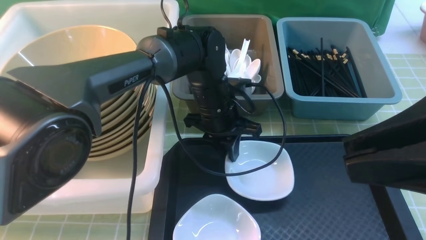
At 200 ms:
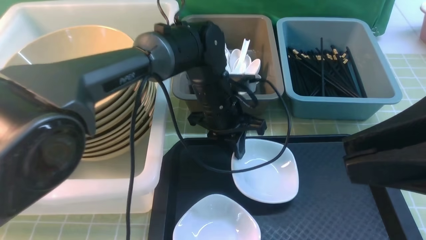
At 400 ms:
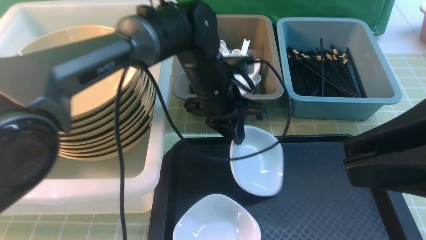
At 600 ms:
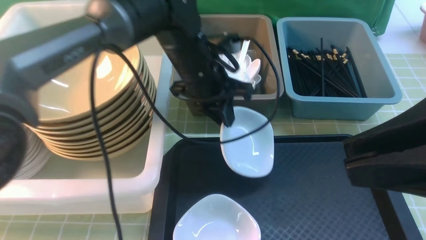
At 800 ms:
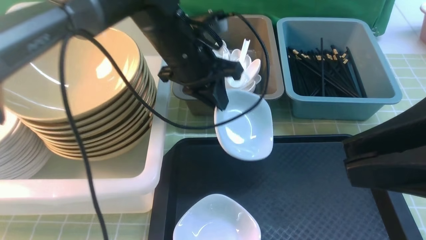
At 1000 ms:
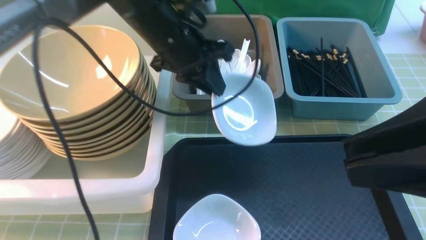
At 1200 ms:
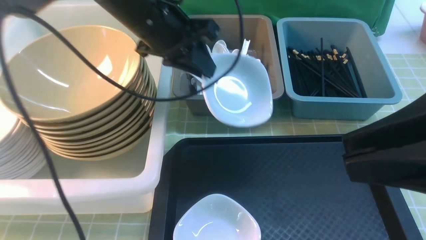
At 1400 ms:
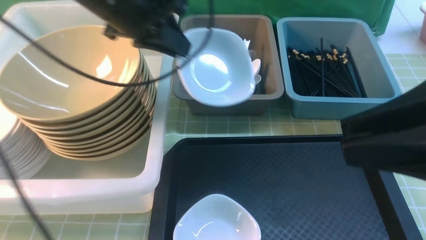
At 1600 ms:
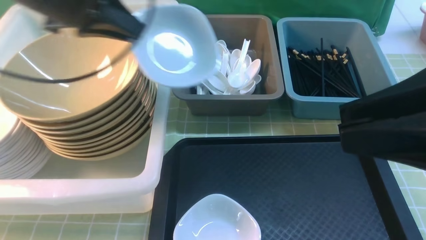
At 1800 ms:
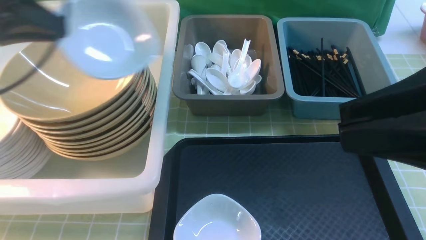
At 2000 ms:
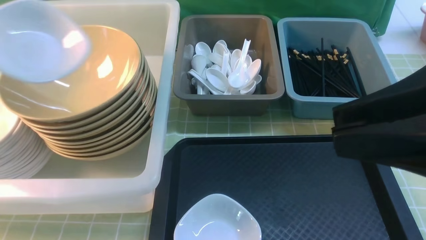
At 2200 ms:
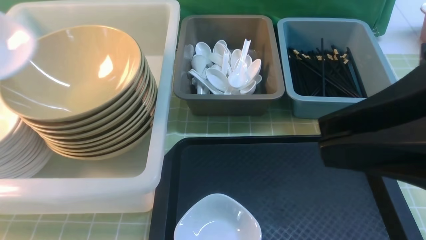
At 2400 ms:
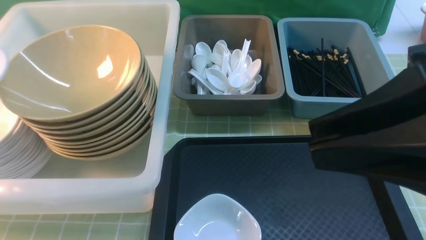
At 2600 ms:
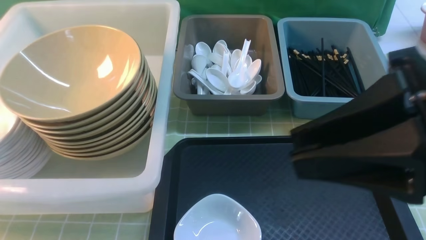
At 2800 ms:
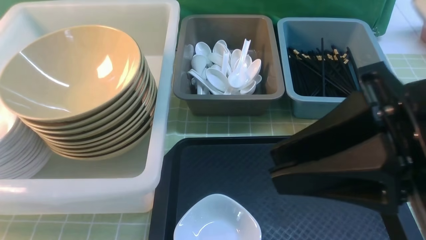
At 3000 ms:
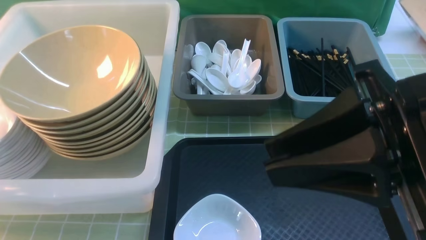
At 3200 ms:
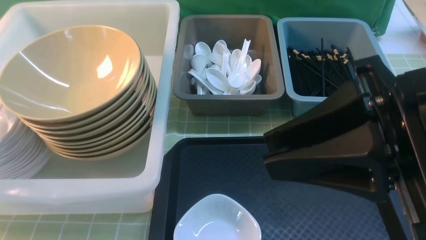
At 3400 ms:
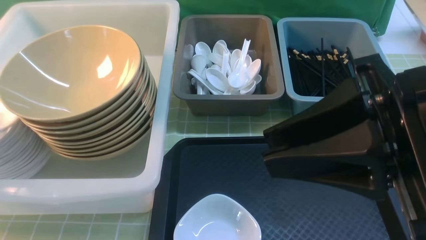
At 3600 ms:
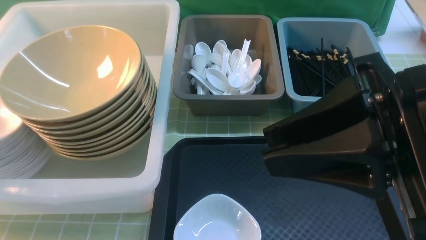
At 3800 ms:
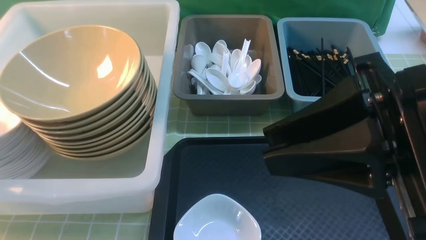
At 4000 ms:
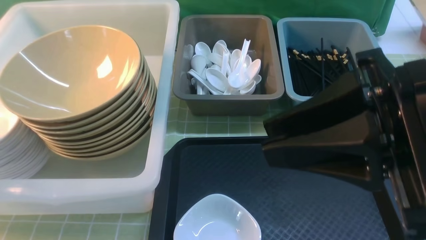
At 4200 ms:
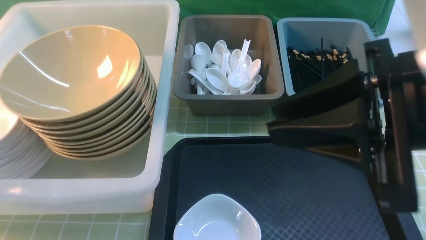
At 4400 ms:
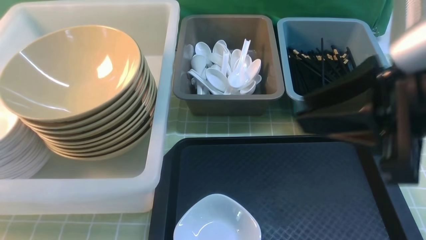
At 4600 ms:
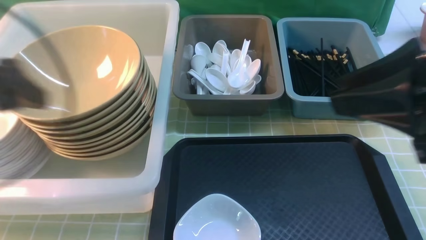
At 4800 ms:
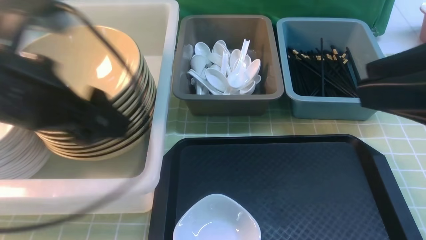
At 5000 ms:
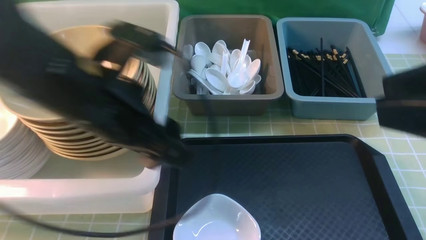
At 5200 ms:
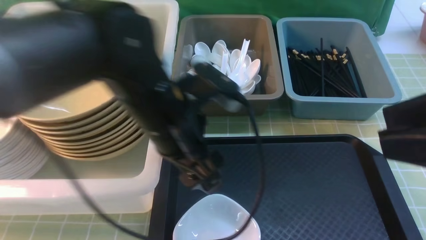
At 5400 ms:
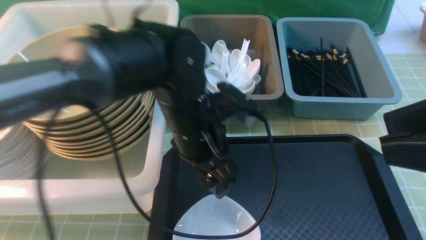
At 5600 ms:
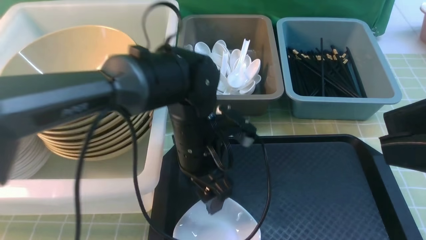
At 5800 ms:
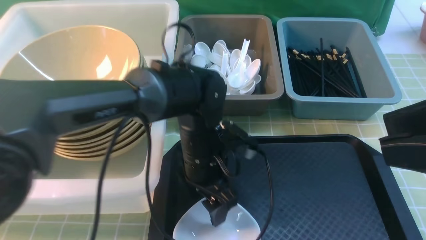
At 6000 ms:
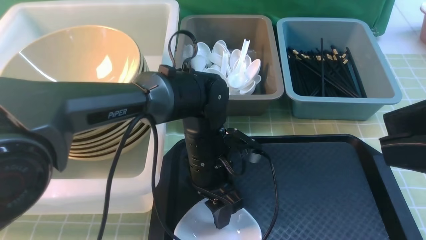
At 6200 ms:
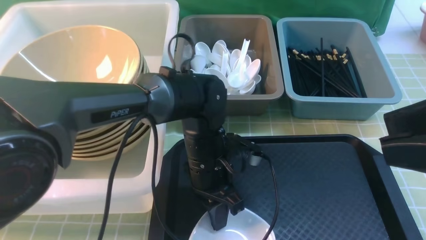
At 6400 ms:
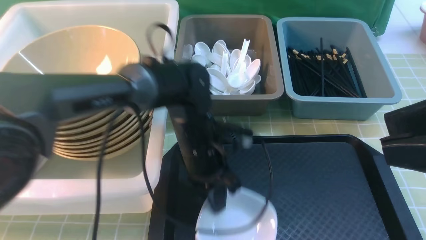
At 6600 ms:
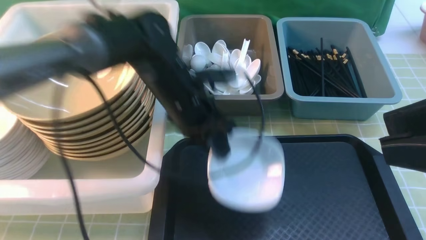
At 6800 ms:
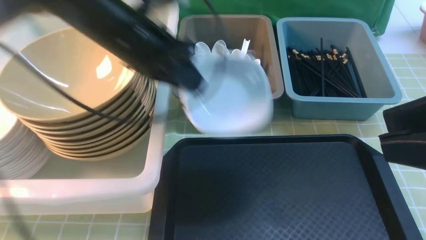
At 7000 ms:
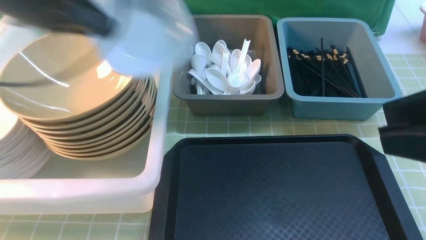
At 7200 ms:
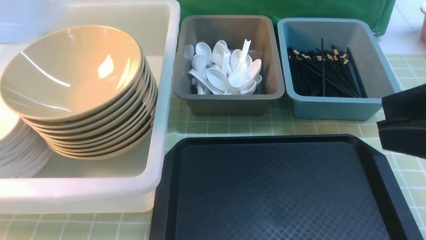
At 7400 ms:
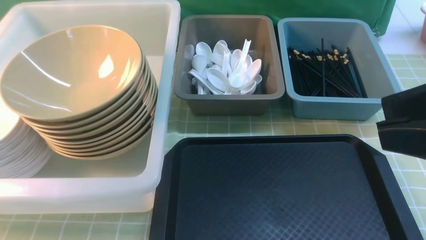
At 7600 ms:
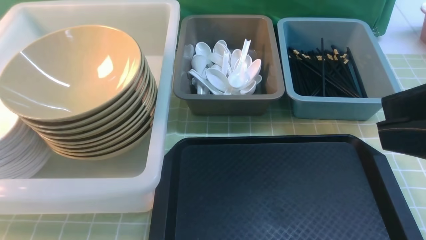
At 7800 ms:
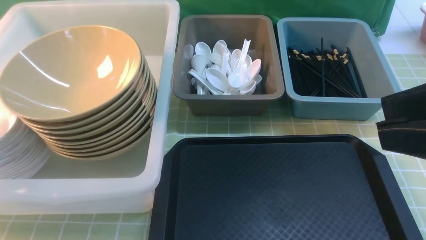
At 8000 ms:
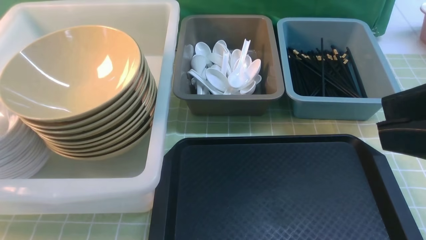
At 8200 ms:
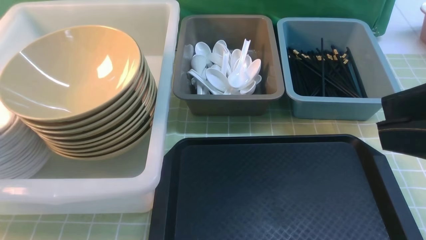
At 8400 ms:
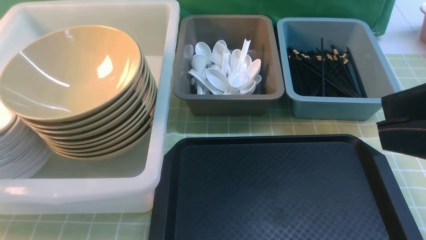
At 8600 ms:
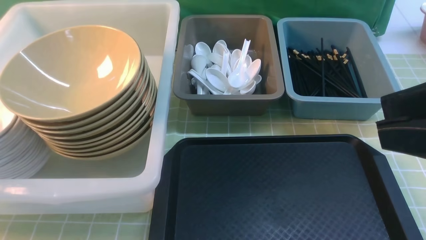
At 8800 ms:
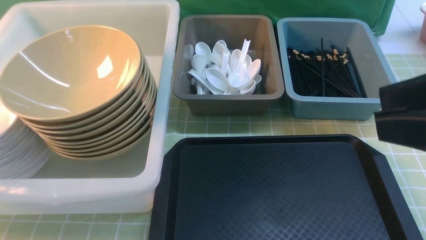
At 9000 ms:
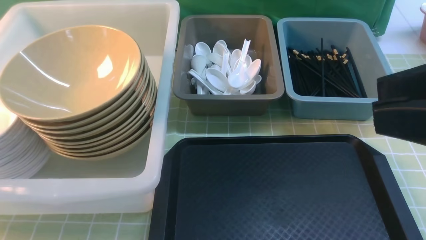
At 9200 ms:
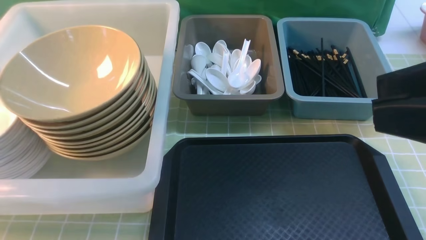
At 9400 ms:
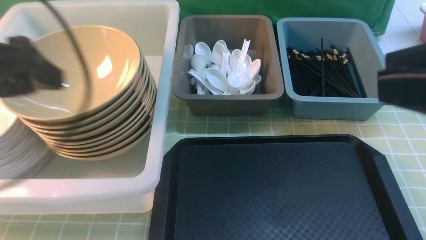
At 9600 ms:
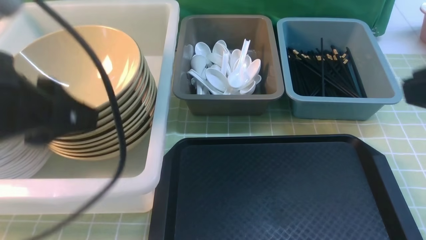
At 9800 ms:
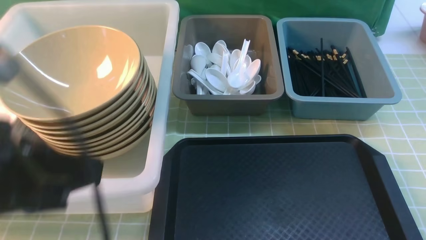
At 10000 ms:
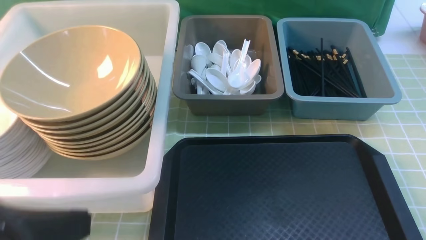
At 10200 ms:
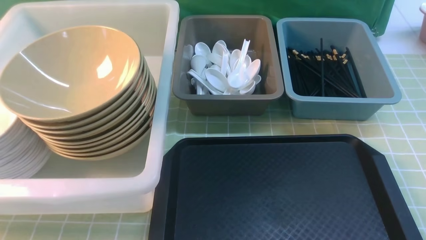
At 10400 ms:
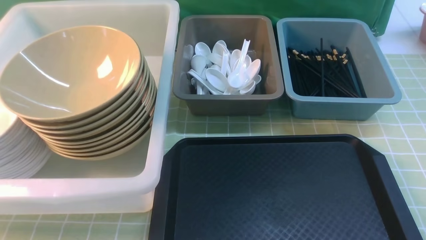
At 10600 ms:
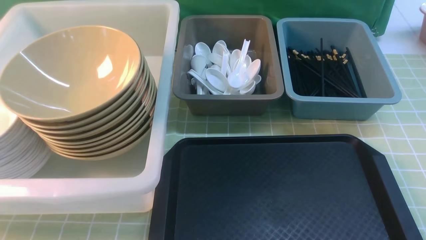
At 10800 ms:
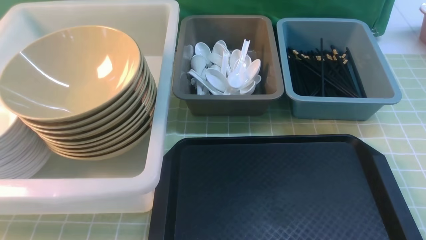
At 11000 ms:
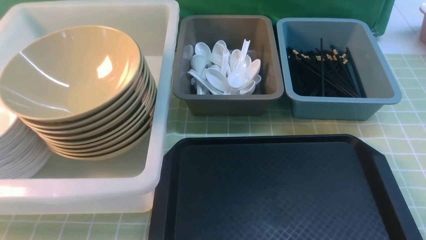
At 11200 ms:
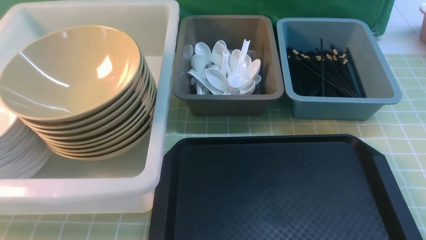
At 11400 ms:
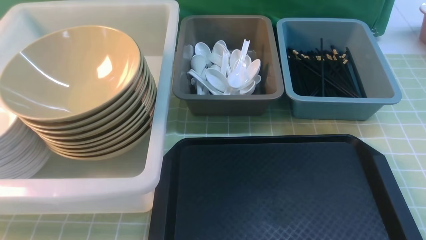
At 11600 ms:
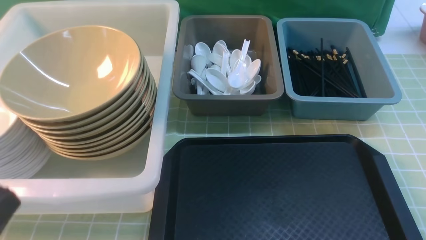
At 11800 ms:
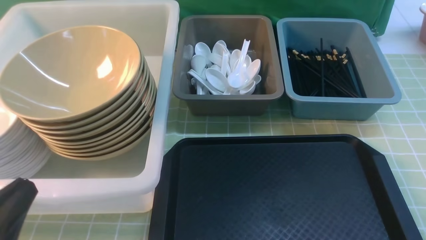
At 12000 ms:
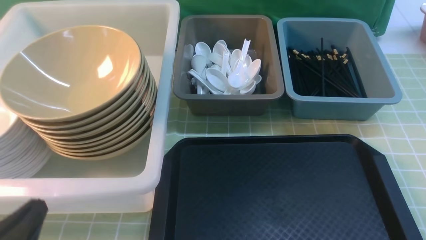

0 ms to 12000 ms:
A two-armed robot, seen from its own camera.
Task of the whole recording: on green table put chopsticks spoon bowls plates into blue grey white boxes.
Step, 600 ms to 3800 ms: use the left arm to put the plate into the large storage box on the left.
Step, 4200 ms to 6400 ms: use the left arm to grab the plate.
Step, 6800 ms to 9000 ms: use the left arm to put the plate into the large storage box on the left.
0 ms to 1600 ms: The left gripper is displaced to the left and upward by approximately 30 cm.
1600 ms to 3000 ms: The right gripper shifts by approximately 5 cm, while the left gripper heads to the left and backward, covering about 20 cm.
3000 ms to 4400 ms: The left gripper moves to the right, approximately 10 cm, and opens.
4400 ms to 6000 ms: The left gripper is displaced to the right and downward by about 35 cm, and closes up. Meanwhile the right gripper goes some 5 cm backward.
6000 ms to 7600 ms: The left gripper moves to the left and upward, roughly 50 cm, and closes its fingers.
9000 ms to 10400 ms: The left gripper travels backward and to the right by some 30 cm, and closes up. The right gripper moves downward, to the right and backward, some 20 cm, and closes up.
10400 ms to 12000 ms: The left gripper goes approximately 15 cm downward and forward.

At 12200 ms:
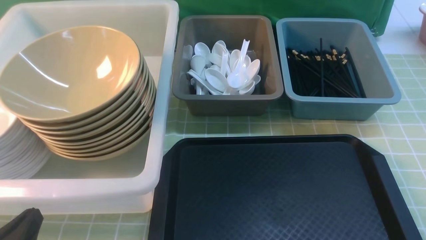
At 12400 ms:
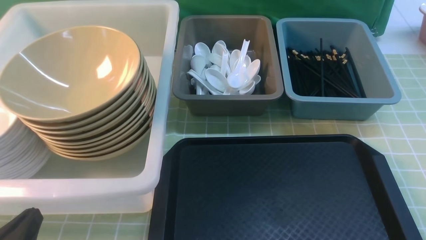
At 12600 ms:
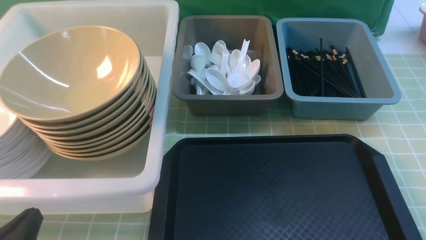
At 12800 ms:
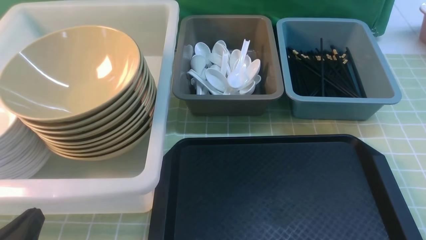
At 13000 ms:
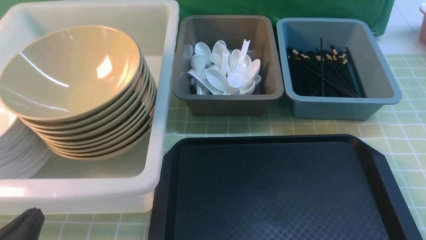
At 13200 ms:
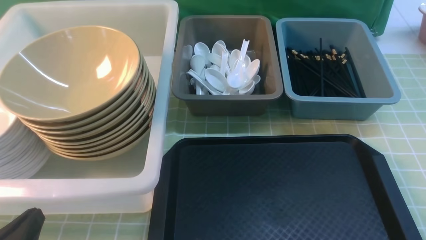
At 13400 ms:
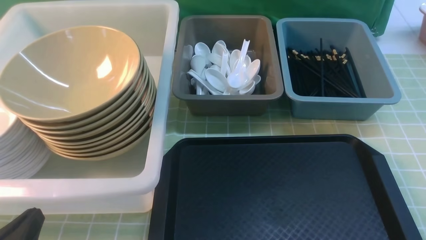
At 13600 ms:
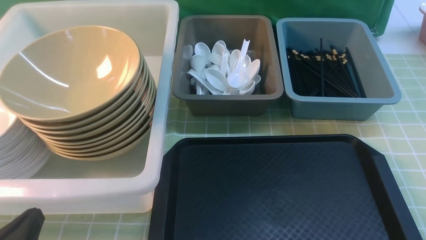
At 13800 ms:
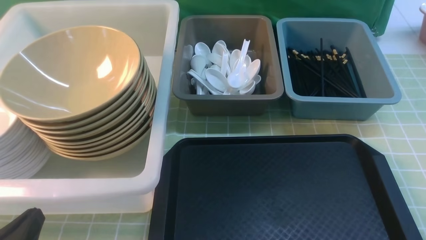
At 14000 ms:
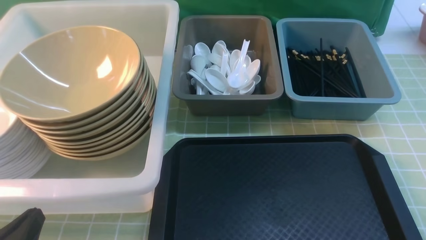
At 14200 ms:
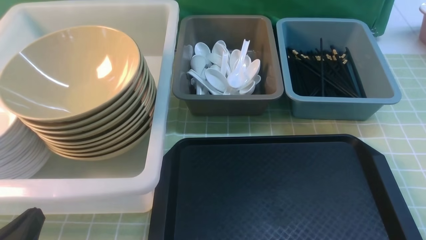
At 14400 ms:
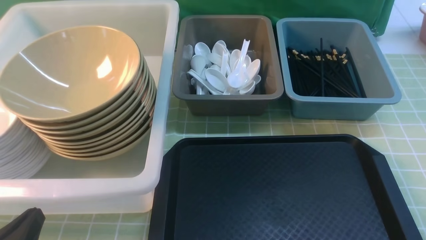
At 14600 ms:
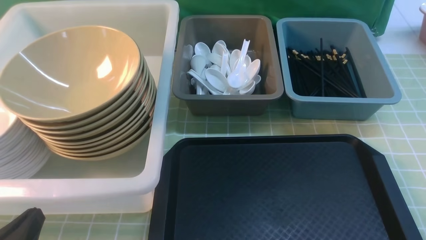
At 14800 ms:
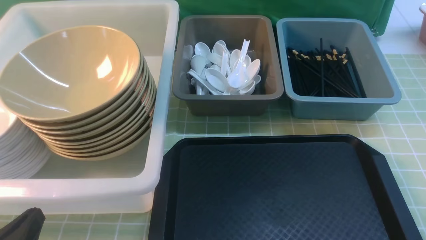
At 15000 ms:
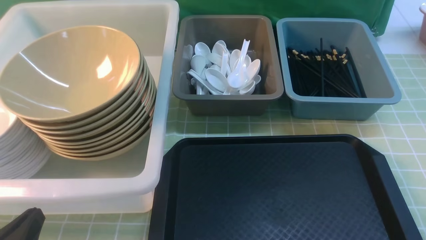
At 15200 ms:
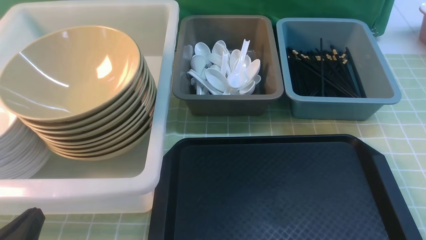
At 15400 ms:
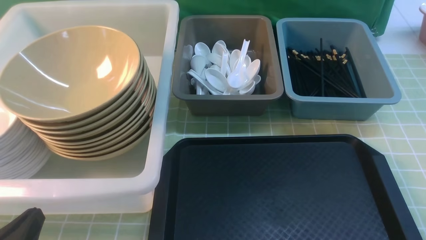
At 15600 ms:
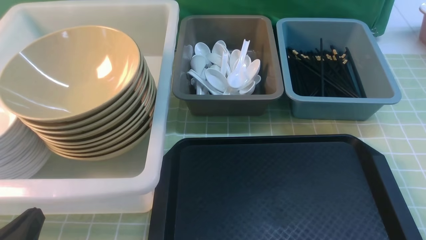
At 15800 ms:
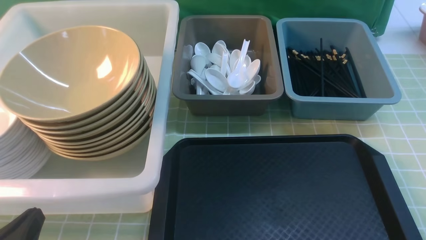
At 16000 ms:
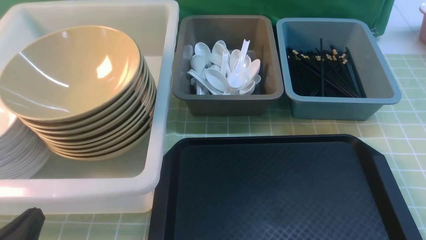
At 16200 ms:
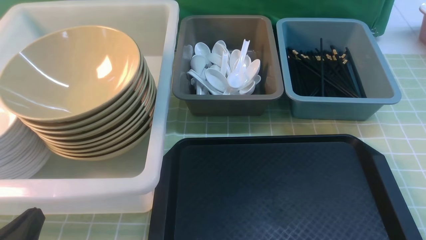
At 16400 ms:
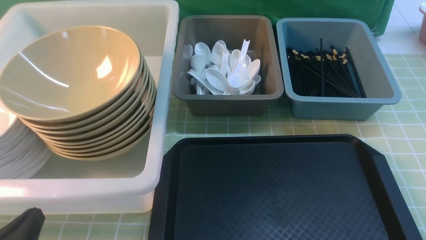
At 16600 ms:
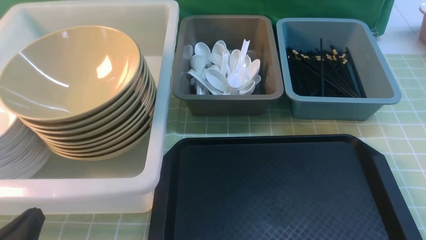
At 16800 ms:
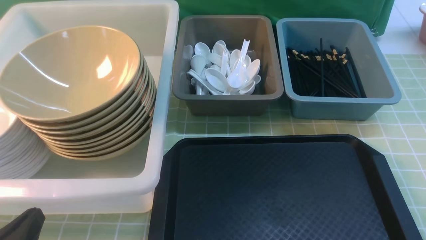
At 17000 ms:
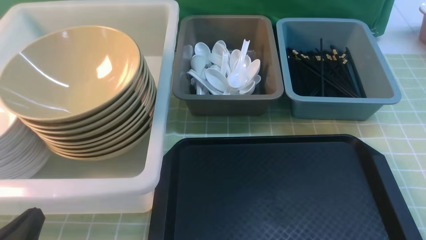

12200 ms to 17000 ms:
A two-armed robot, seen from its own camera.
Task of the whole recording: on green table put chopsticks spoon bowls plates into blue grey white boxes.
15400 ms to 17000 ms: Neither gripper changes place.
